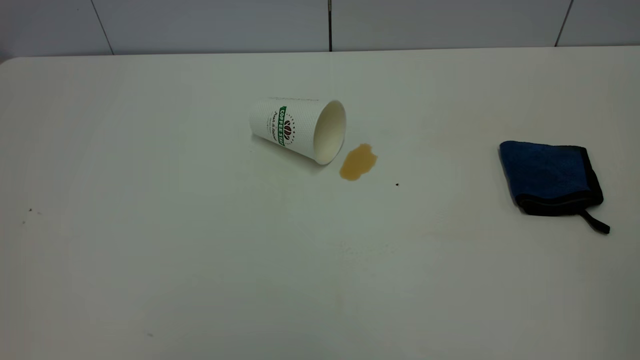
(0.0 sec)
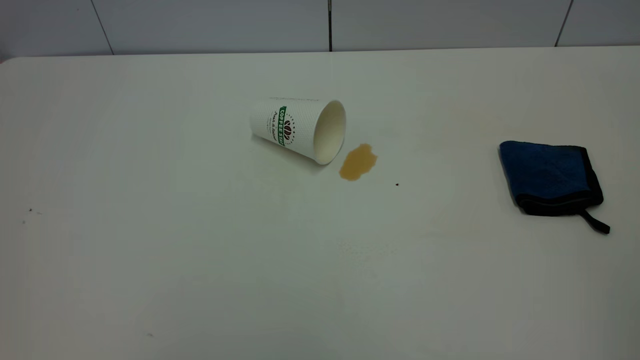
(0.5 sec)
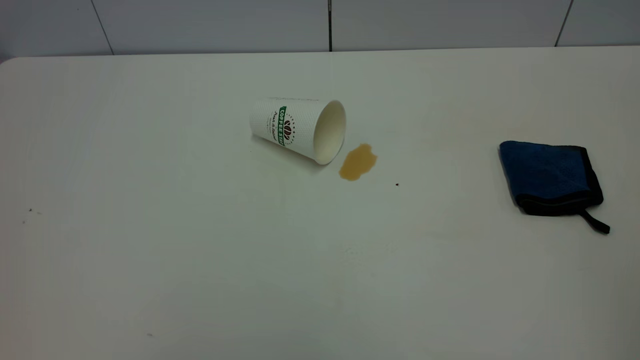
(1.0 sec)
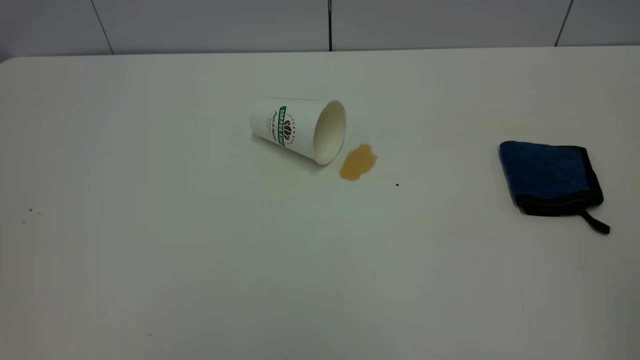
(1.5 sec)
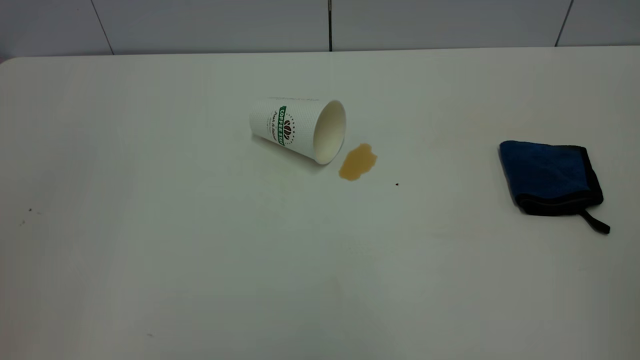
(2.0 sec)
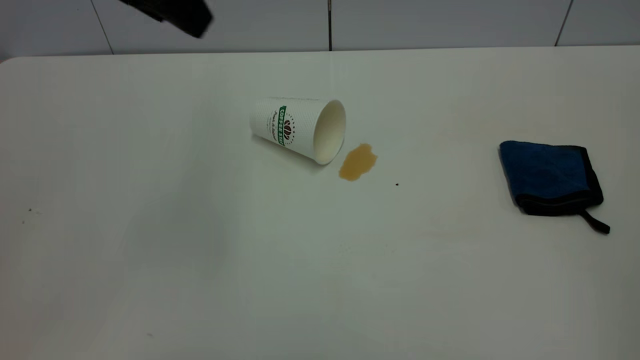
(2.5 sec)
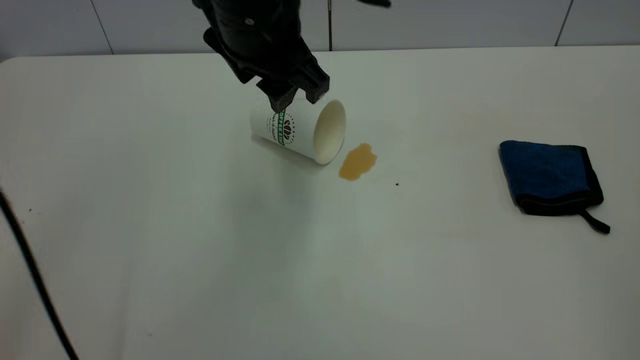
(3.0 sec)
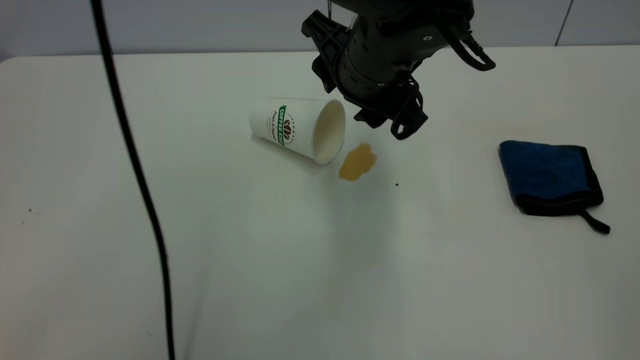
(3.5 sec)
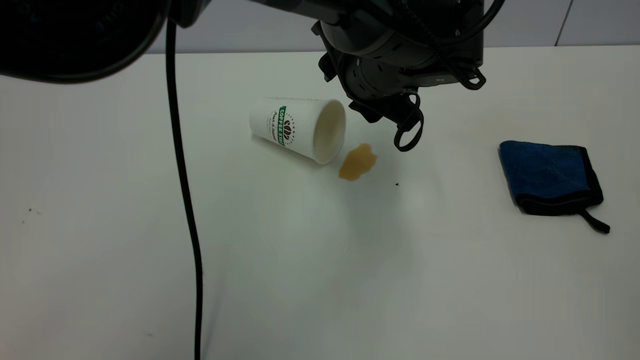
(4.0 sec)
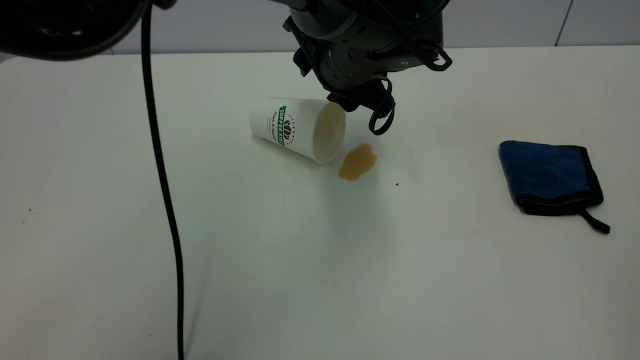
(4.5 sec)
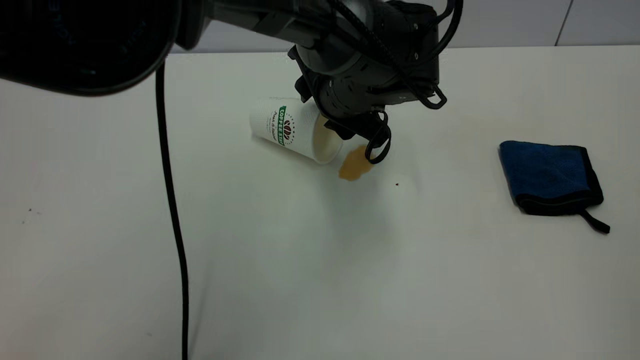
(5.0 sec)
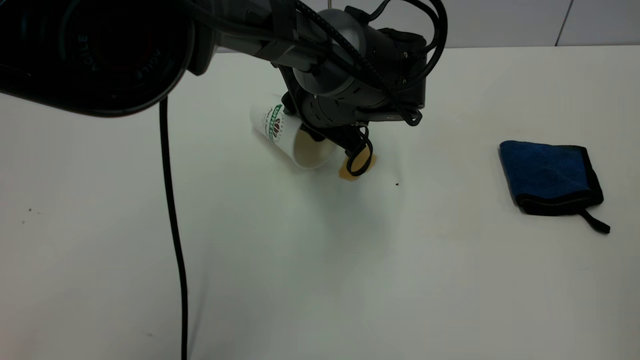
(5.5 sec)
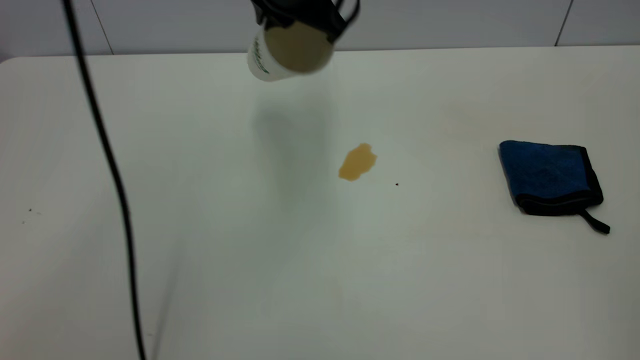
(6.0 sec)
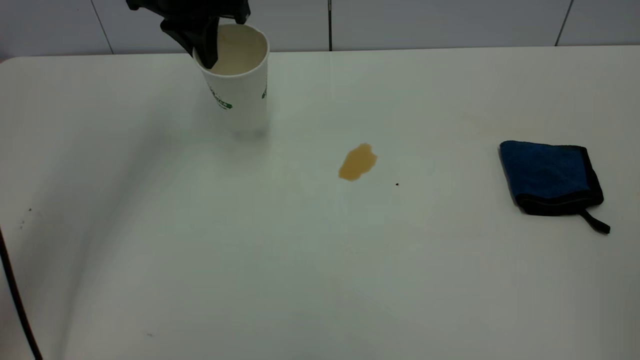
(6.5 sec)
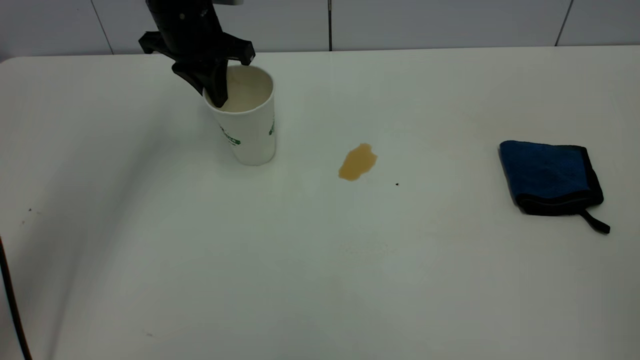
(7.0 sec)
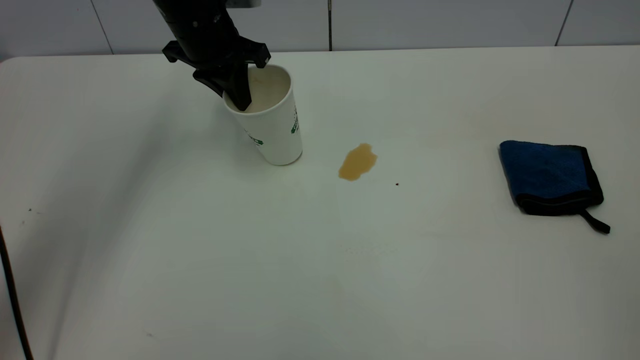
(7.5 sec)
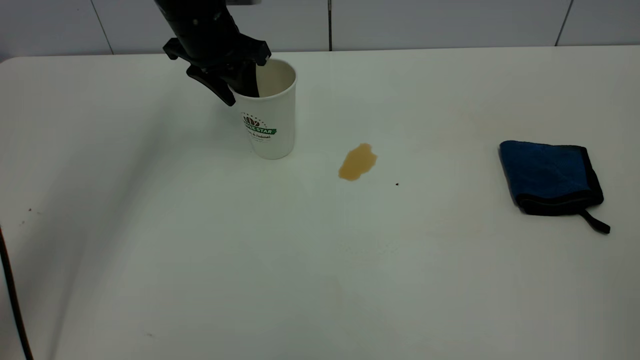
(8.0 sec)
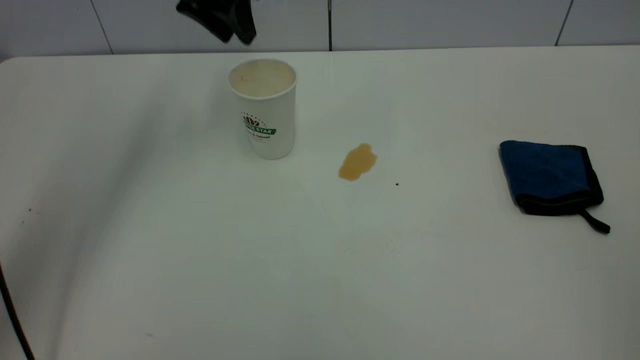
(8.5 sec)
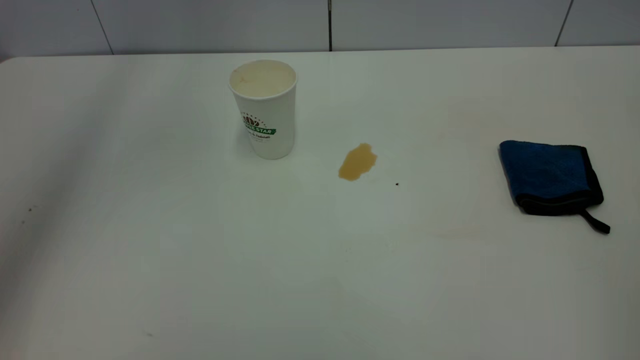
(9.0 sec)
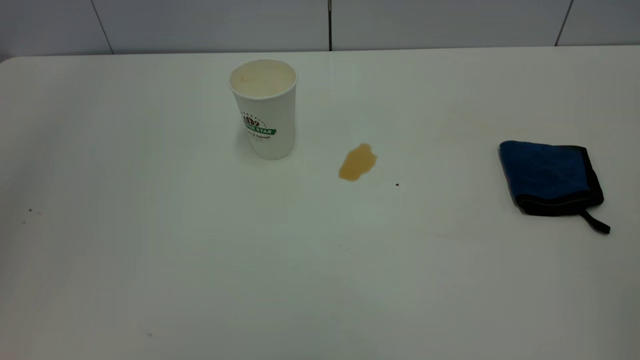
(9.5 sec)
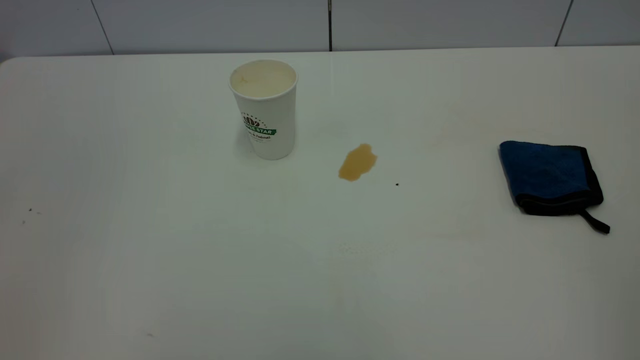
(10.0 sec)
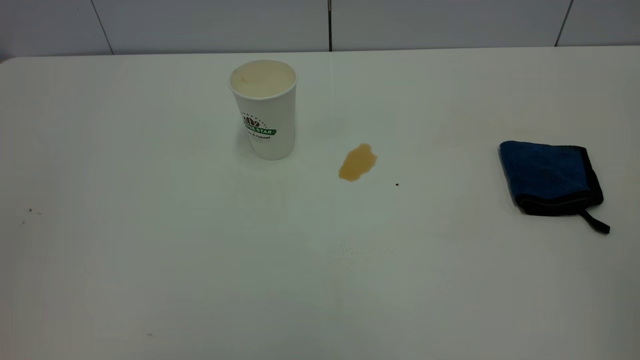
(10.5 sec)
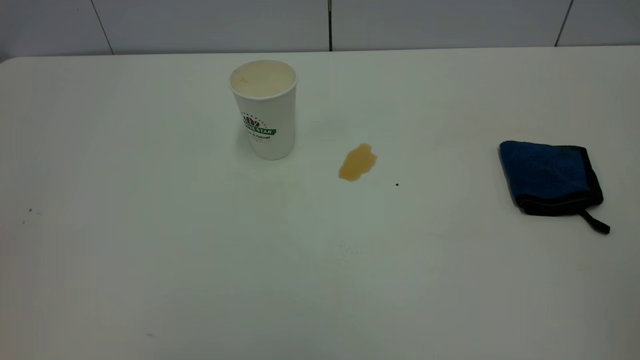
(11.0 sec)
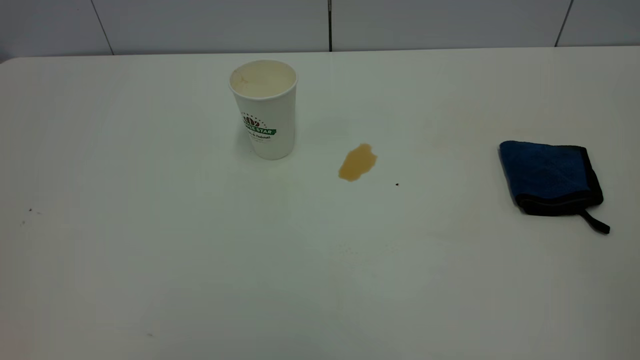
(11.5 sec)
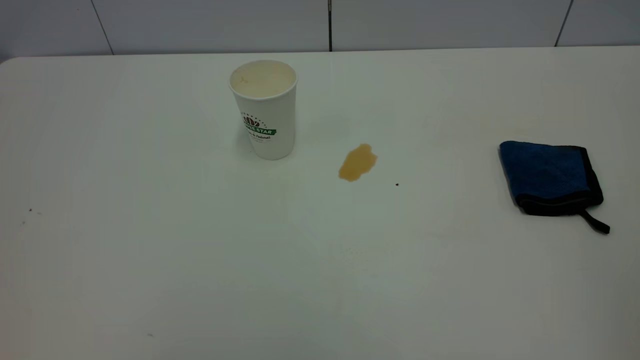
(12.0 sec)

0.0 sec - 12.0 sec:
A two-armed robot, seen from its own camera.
Task of the whole recording: the left gripper pick up the fallen cup and place it upright, the right gripper grasp the blue rag and wipe the tea stain on the table, the right gripper put the blue rag back in its original position.
Step, 0.0 sec - 8.0 sec: Stand the paper cup upright.
2.0 sec - 4.0 sec: The left gripper moves to the right, forward and downward, approximately 50 cm.
4.0 sec - 6.0 sec: The left gripper goes approximately 15 cm upward, to the left and forward, and closes its fingers.
6.0 sec - 8.0 sec: The left gripper goes roughly 15 cm to the left, downward and forward, and opens.
8.0 sec - 10.0 sec: The left gripper shifts some 40 cm backward and upward.

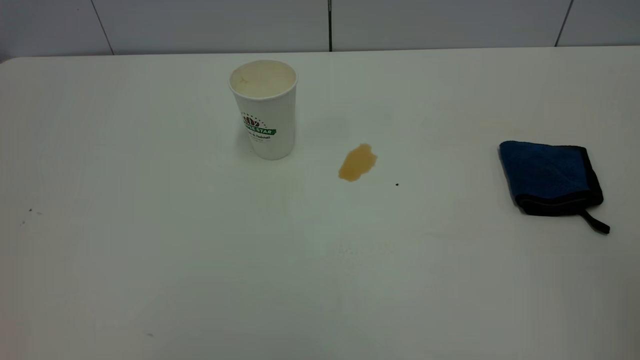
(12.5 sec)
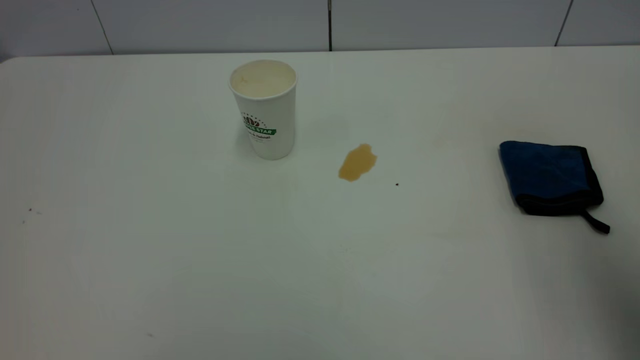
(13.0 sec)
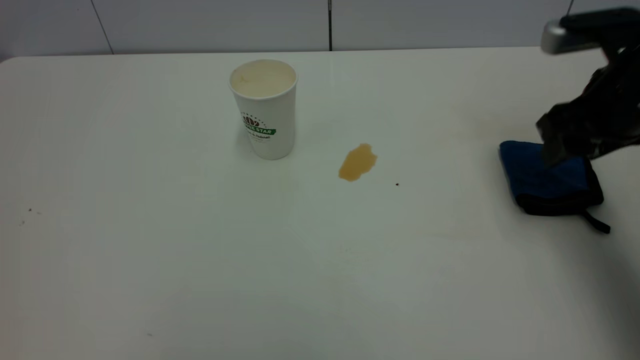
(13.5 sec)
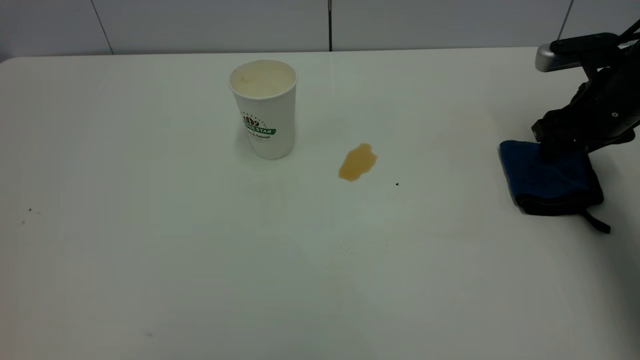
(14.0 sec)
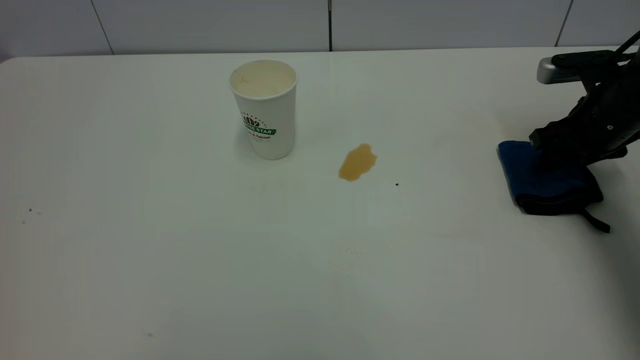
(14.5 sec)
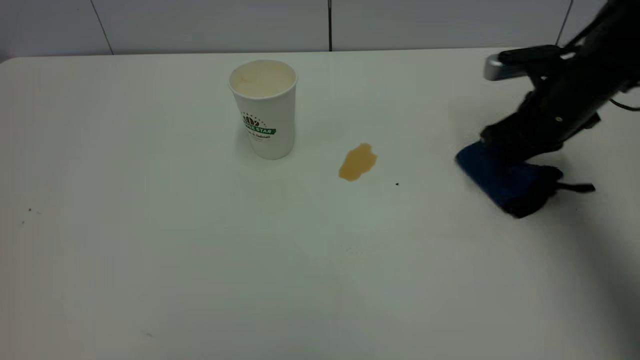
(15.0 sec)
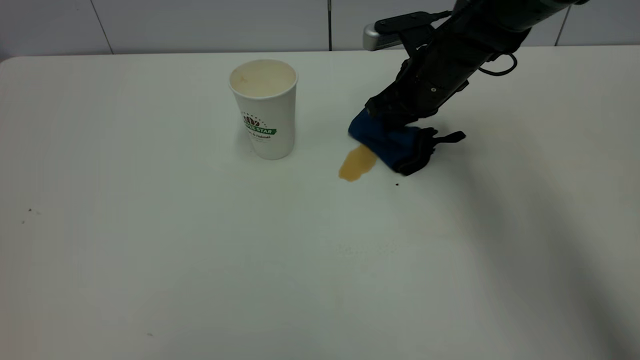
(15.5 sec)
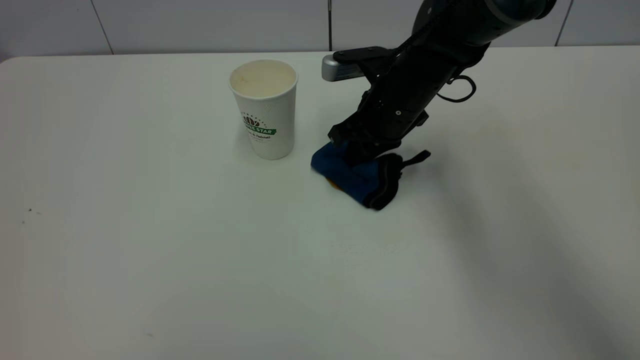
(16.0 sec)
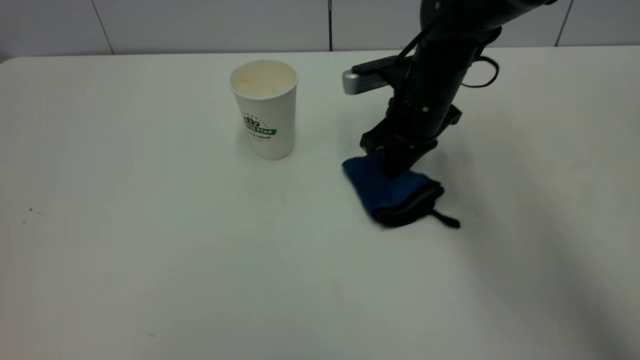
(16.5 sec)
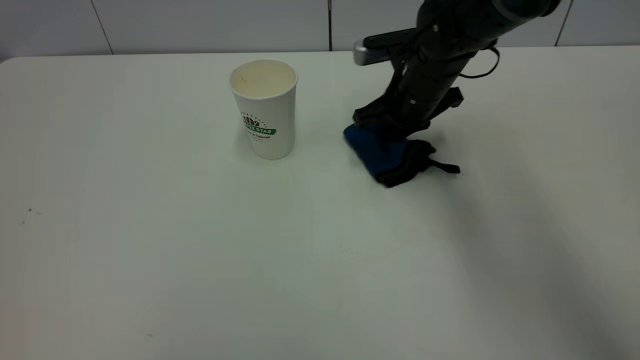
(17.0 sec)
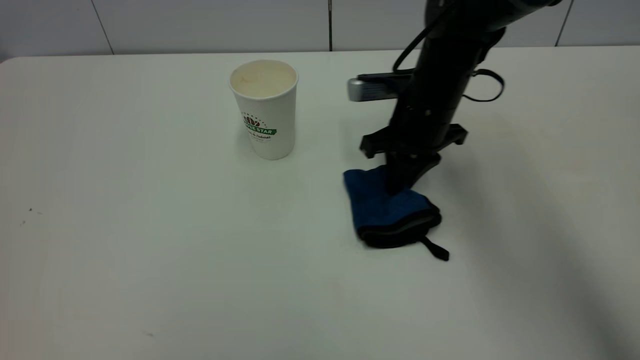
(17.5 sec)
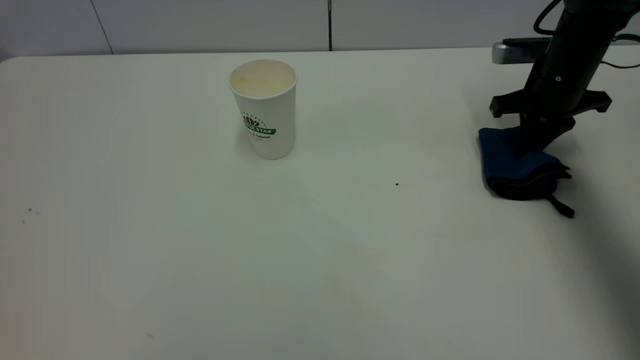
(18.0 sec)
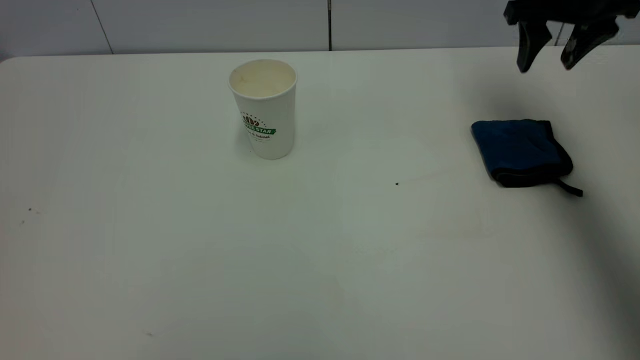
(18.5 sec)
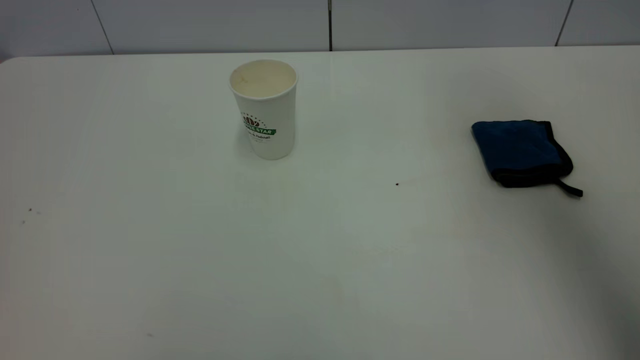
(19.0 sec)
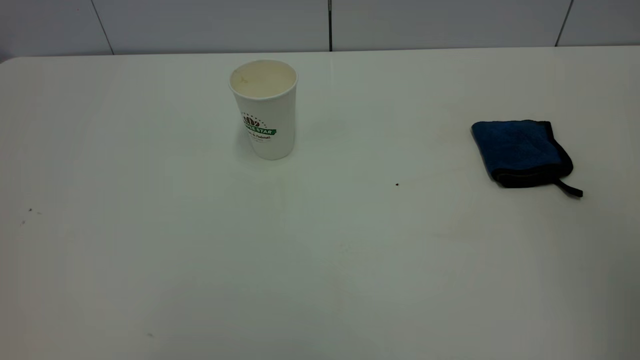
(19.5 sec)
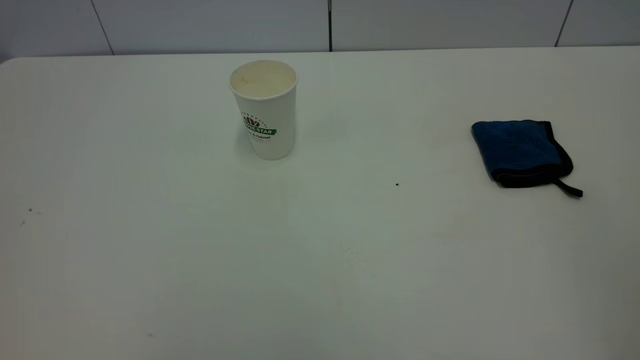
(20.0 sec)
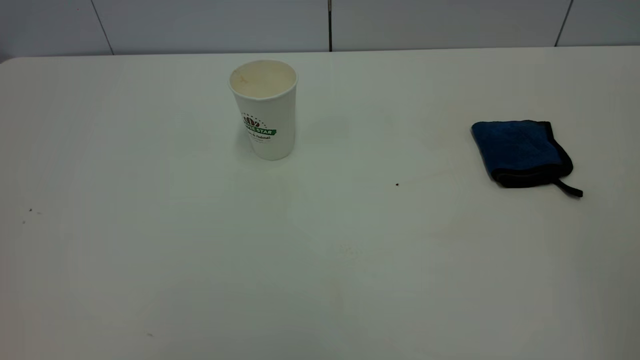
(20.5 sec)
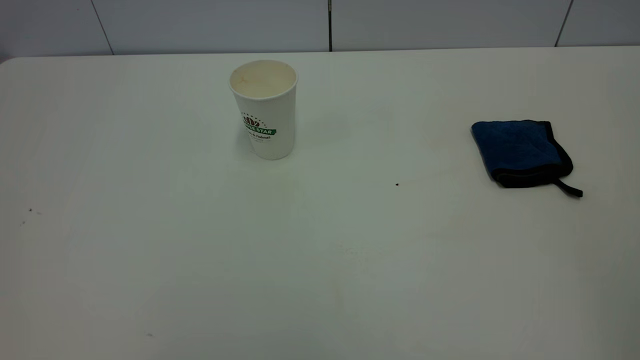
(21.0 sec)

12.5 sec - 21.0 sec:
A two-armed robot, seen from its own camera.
Task of the whole recording: the left gripper pick up the fallen cup and place it upright, the right gripper grasp the blue rag and wipe the tea stain on the table, the right gripper put the blue rag back in its original position.
Step, 12.5 sec - 18.0 sec: Wipe the stains off the table with a rag.
12.5 sec - 14.5 sec: The right gripper travels forward and downward by some 50 cm.
14.5 sec - 16.5 sec: The right gripper goes roughly 20 cm to the left, and closes.
16.5 sec - 19.0 sec: The right gripper goes roughly 30 cm upward and backward, and opens up.
19.0 sec - 21.0 sec: The right gripper moves backward, some 35 cm.
